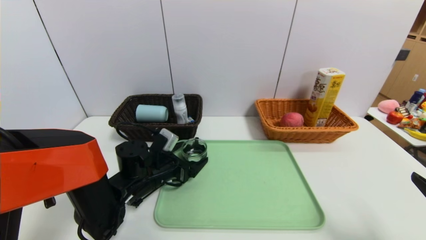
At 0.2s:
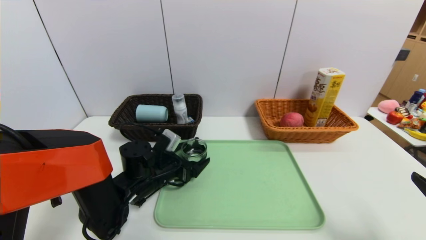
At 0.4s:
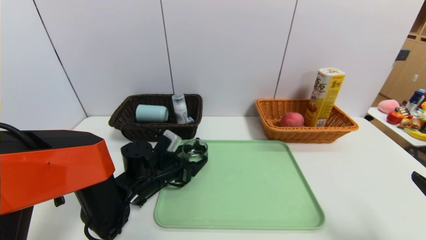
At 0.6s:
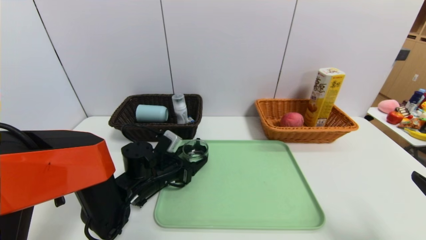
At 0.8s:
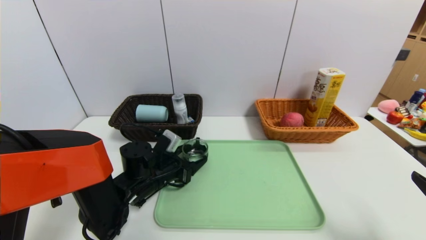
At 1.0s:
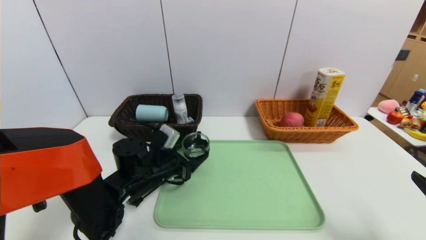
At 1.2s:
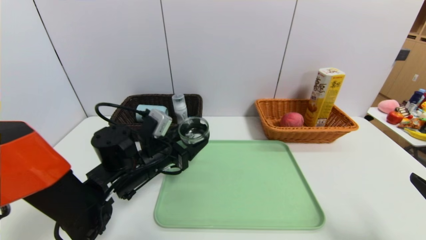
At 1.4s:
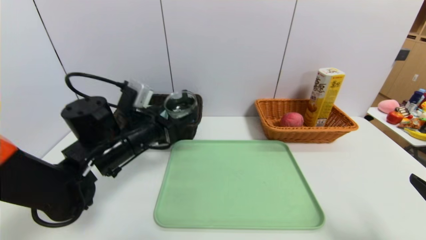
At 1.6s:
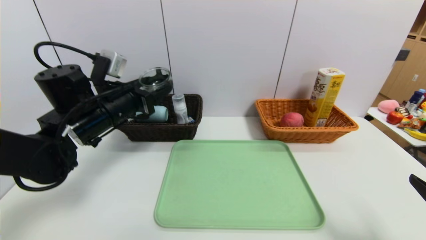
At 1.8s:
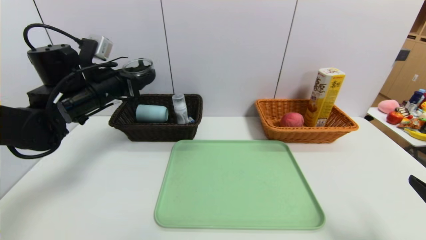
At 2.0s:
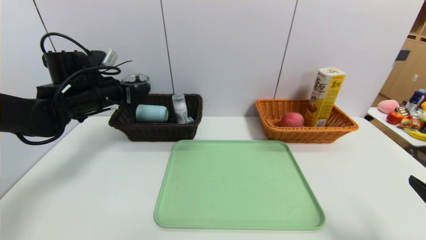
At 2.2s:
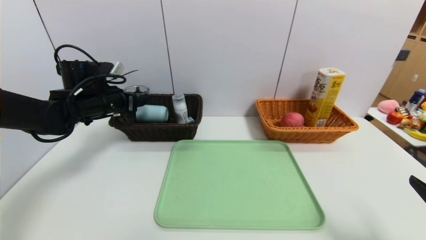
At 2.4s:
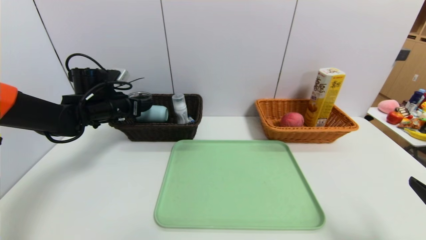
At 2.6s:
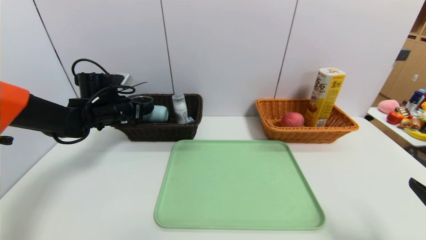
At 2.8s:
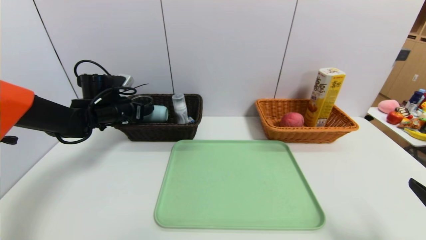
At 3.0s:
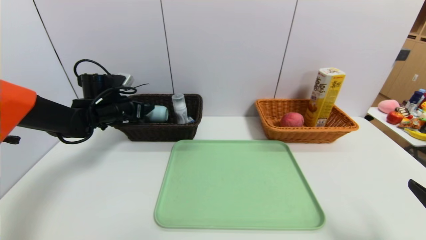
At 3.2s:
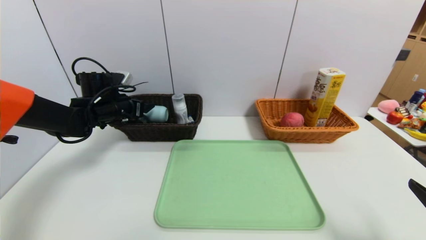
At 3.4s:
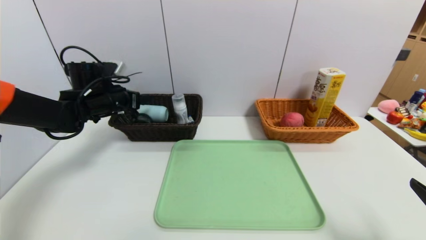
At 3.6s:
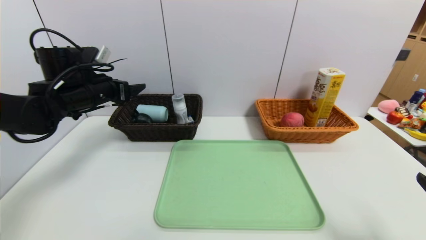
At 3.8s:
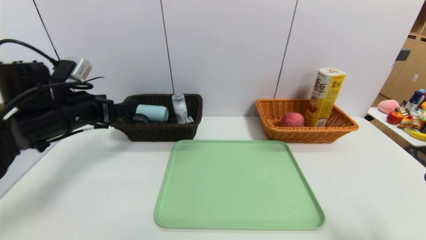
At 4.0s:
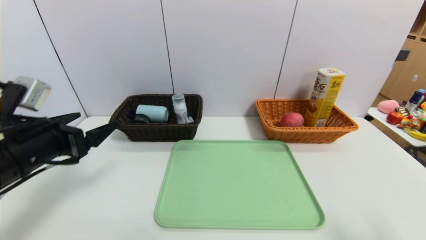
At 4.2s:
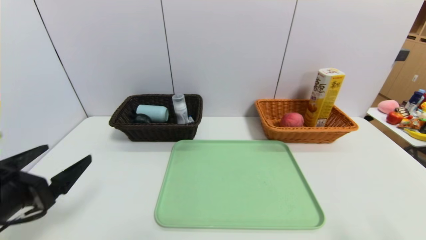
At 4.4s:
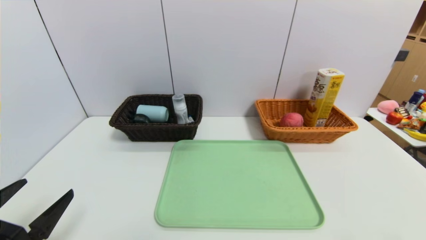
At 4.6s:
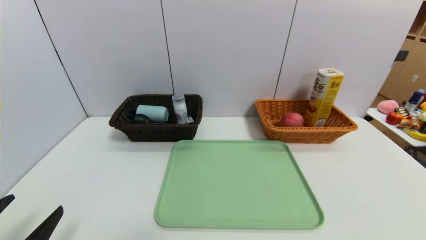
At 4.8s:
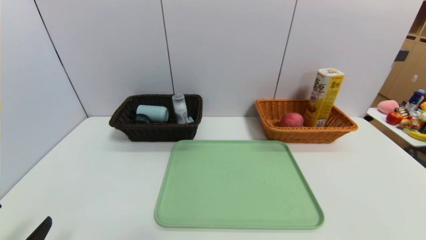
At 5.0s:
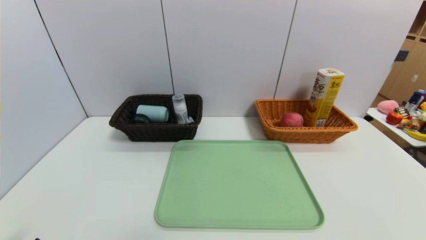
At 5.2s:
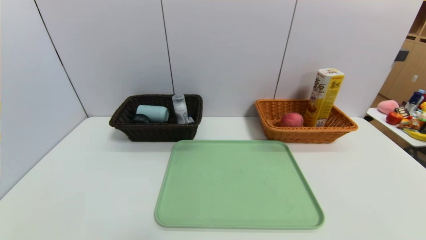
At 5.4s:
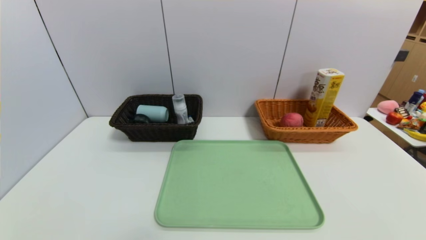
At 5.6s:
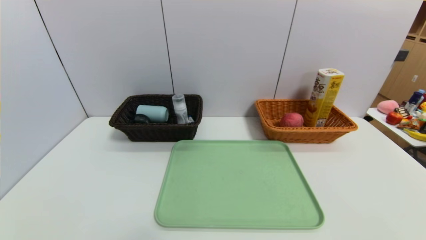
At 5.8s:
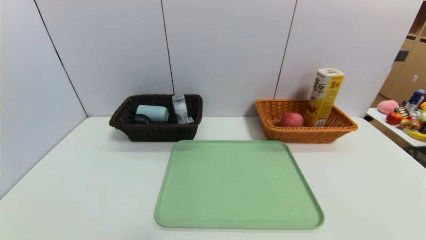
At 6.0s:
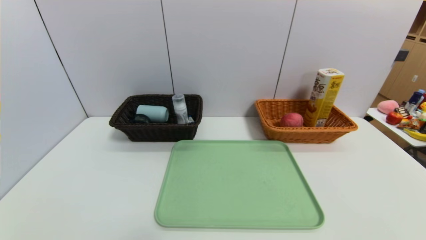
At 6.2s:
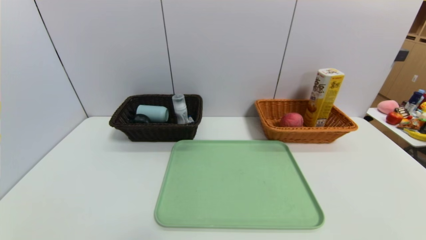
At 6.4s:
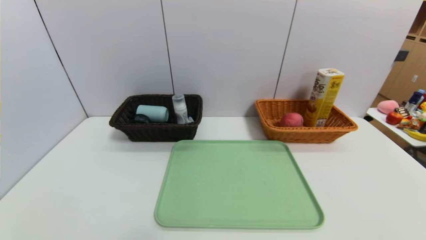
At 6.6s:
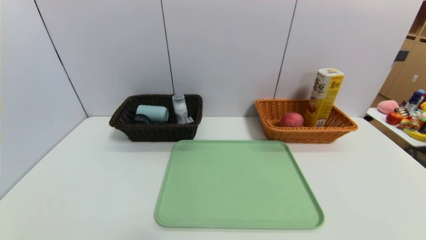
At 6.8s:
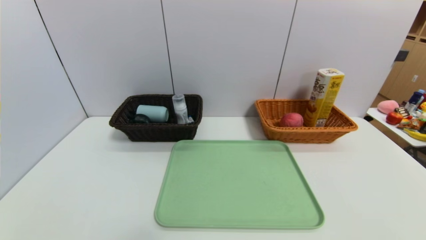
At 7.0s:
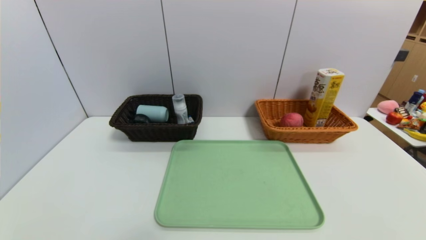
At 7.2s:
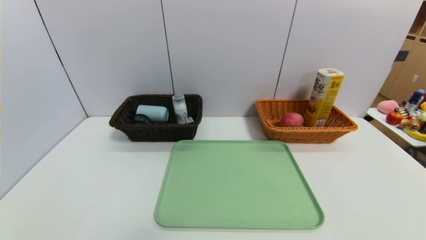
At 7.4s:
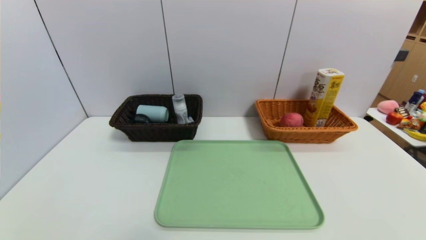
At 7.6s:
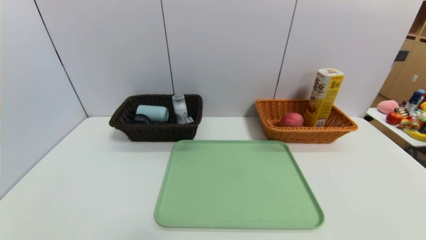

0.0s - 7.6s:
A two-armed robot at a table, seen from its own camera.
Task of the whole recording: place the food in the right basket with the right gripper, and place the non food items in the left basket with the left gripper.
Step, 0.0s - 3.0s: Grasp the black glass cup and put it in the left basket.
0.0s - 1.6s: The left gripper goes approximately 20 cm upward and to the left, and closes.
1.6s - 3.0s: The left gripper shifts approximately 15 cm forward, downward and to the left, and opens.
3.0s - 4.6s: The right gripper travels backward and downward by roughly 10 cm; the left gripper goes about 40 cm backward, and opens its fingers.
4.6s - 6.0s: The left gripper heads backward, covering about 5 cm.

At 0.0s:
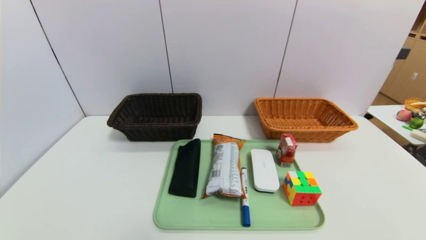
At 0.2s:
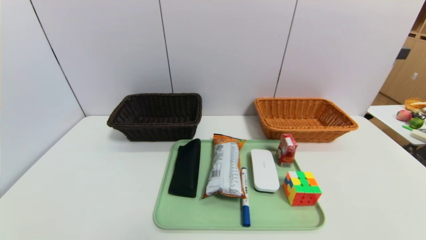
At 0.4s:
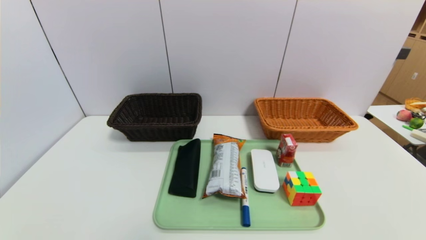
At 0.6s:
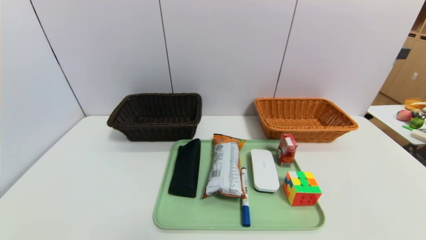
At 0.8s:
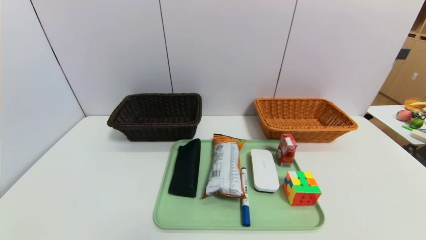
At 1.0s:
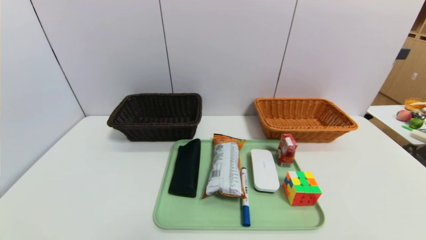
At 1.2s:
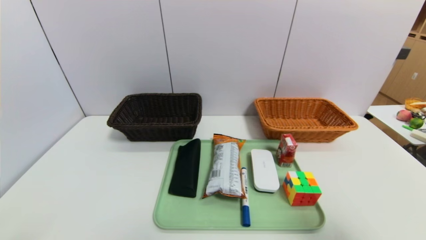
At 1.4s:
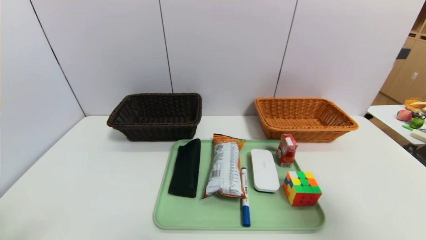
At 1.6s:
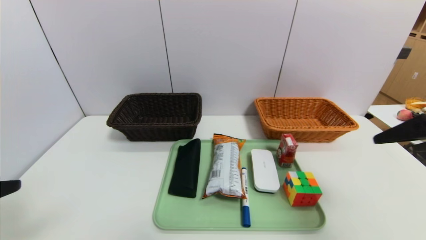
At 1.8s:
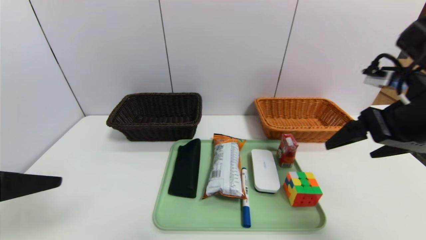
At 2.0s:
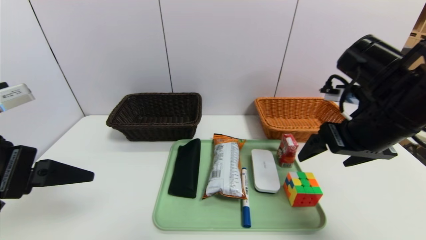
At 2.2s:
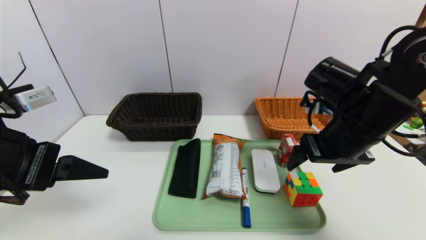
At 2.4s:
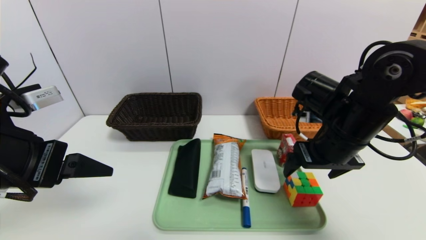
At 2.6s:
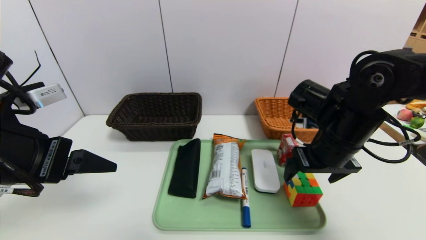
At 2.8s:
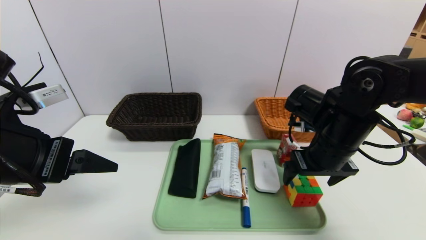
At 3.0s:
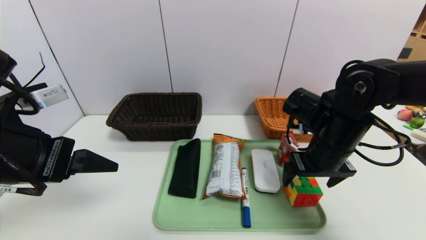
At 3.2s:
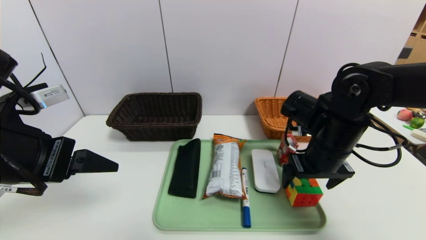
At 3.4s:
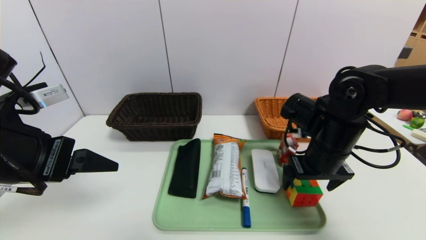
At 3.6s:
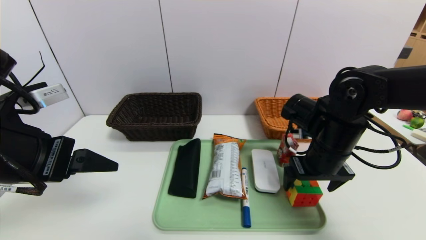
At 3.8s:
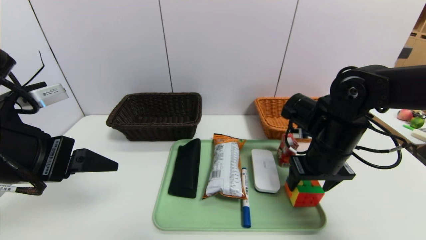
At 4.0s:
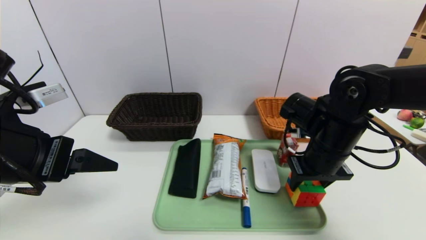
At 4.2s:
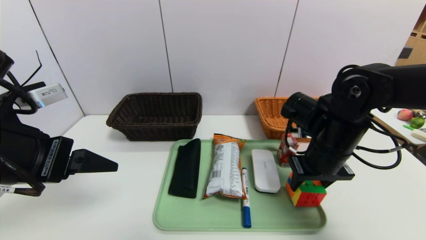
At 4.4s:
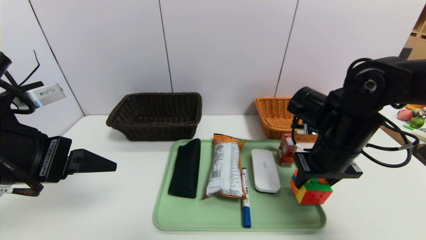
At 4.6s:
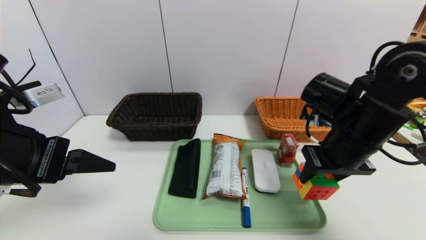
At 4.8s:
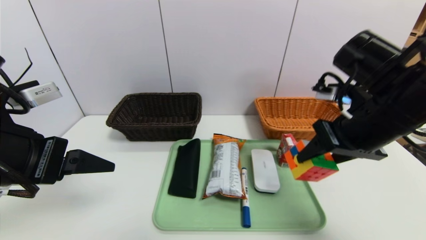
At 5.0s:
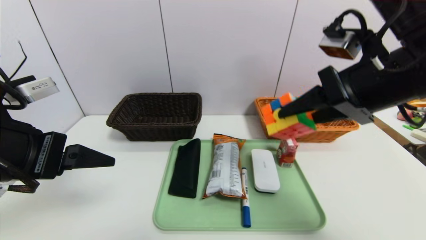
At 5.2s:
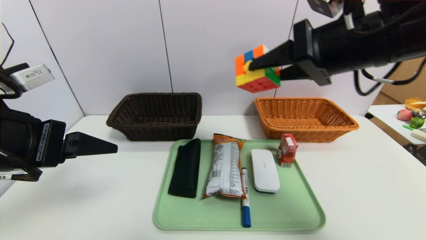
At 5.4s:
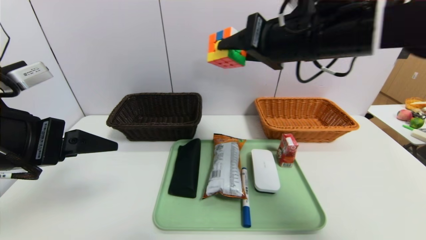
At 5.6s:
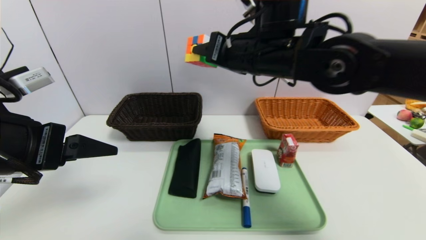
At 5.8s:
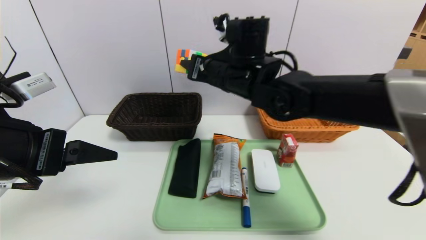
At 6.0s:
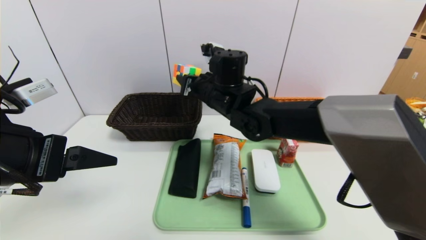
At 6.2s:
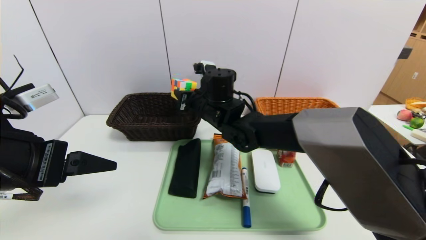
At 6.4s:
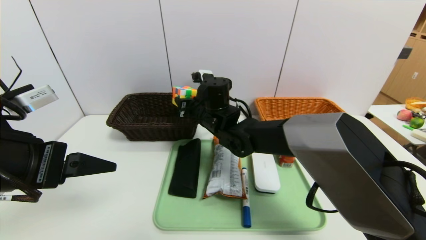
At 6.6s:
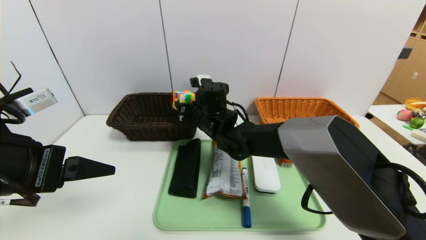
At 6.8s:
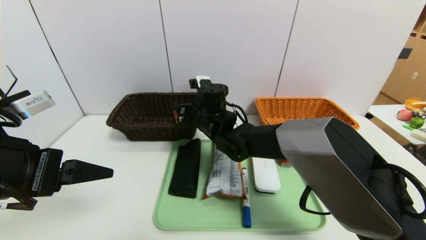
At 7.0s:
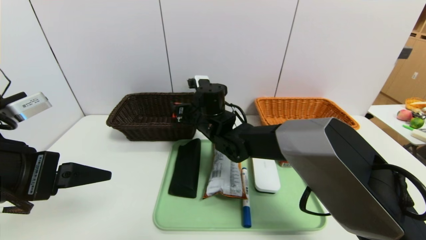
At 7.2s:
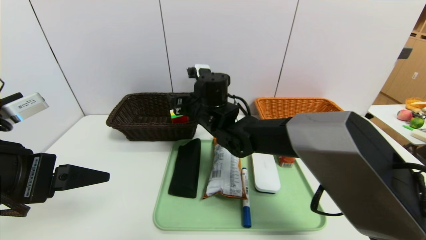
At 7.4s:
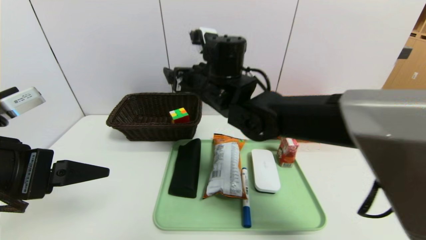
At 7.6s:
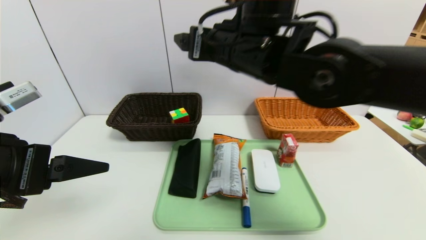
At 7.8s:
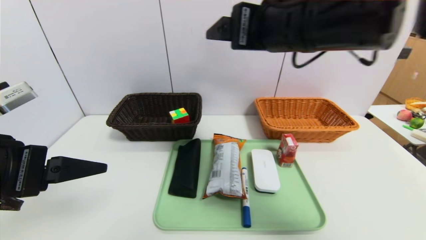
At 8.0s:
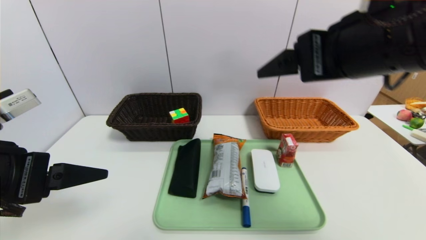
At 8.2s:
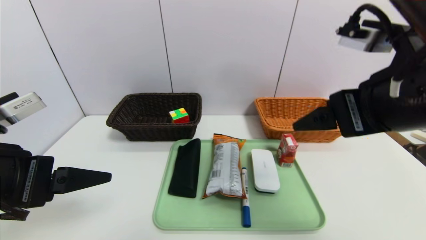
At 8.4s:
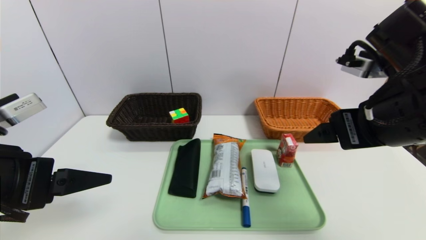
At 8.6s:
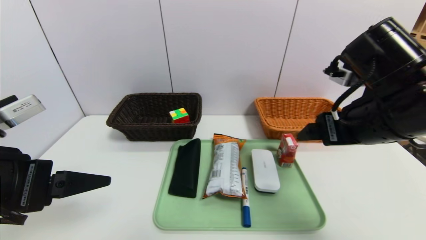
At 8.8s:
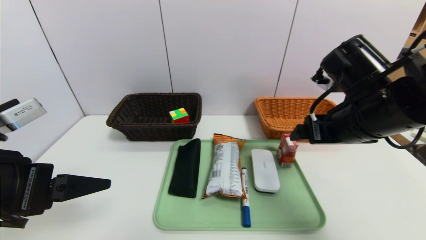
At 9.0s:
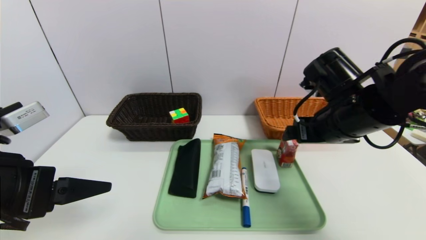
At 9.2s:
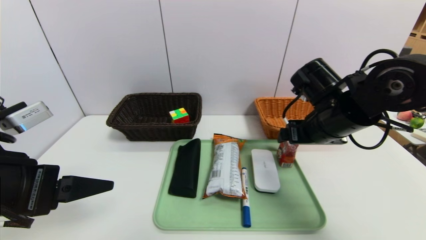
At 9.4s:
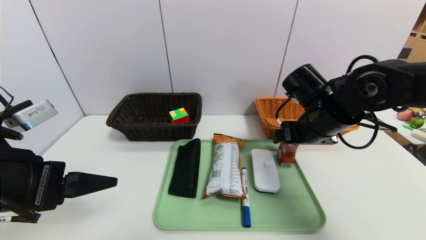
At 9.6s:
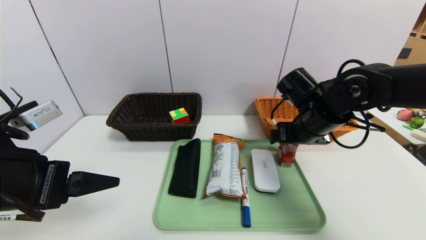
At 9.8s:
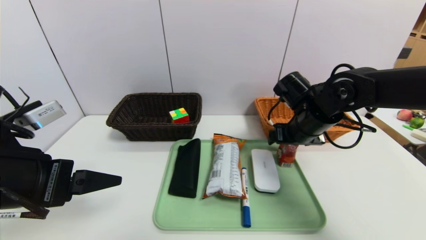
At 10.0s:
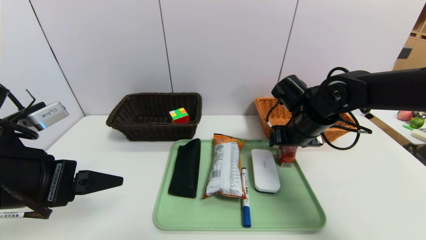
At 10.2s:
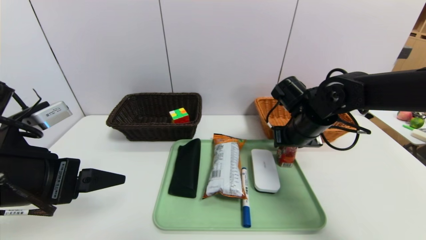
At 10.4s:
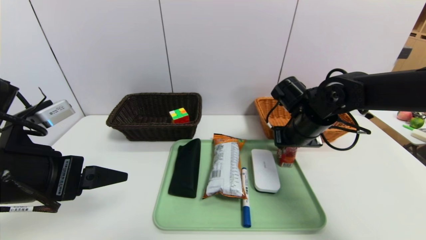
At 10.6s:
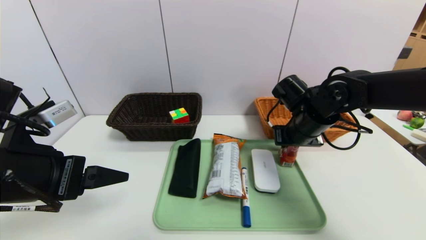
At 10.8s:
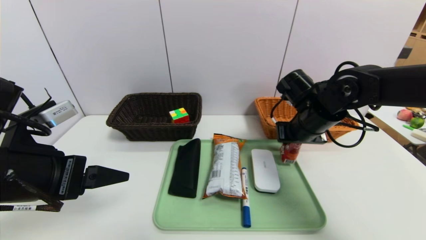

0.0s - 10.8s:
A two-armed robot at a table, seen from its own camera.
Task of the whole recording: place the food in the right basket with the right gripper, and place the non food items in the left basket with the left gripper.
Step, 0.0s - 7.2s: Grasp the rubiks cube and put it in the left basket.
0.0s - 1.6s: The left gripper travels upward by approximately 25 cm; the right gripper is displaced upward and forward by about 30 cm.
1.6s - 3.0s: The right gripper is displaced downward, forward and to the left by some 20 cm. The left gripper is displaced forward and to the right by some 10 cm.
3.0s - 4.6s: The right gripper closes up.
4.6s - 6.2s: The right gripper moves to the left and forward, roughly 25 cm.
6.2s - 7.8s: The right gripper is displaced upward, backward and to the right by roughly 25 cm, and opens its fingers.
7.8s - 9.2s: The right gripper goes about 20 cm downward and to the right.
9.2s - 10.8s: The right gripper ends up some 5 cm from where it was, and closes.
